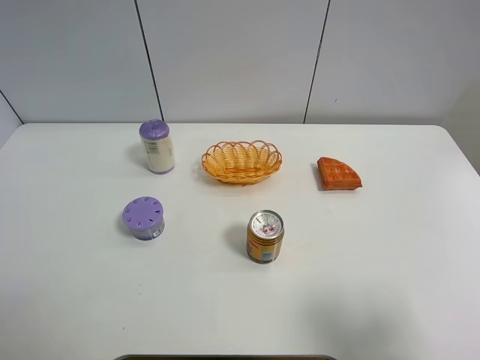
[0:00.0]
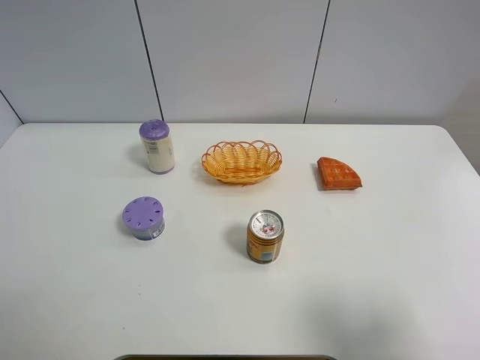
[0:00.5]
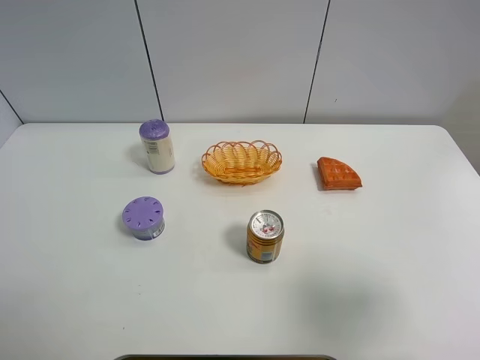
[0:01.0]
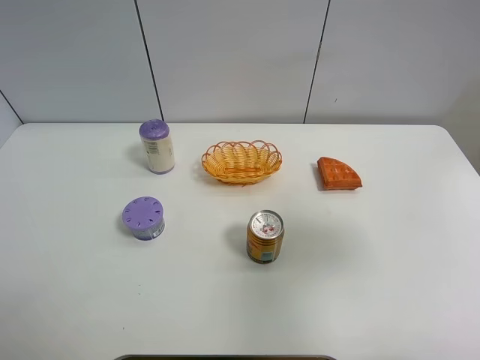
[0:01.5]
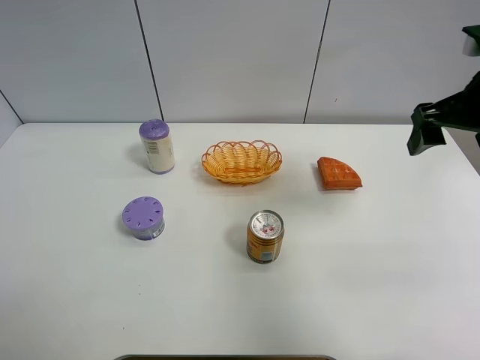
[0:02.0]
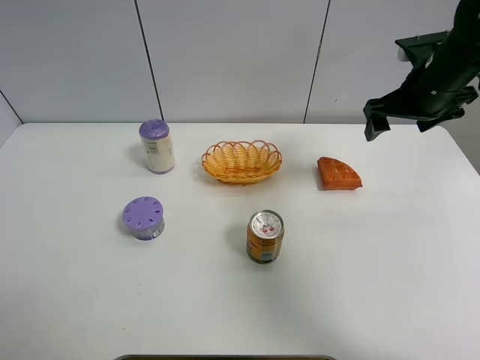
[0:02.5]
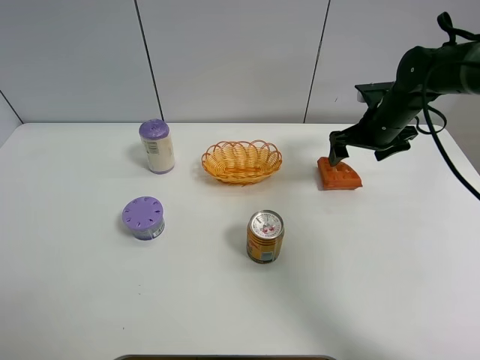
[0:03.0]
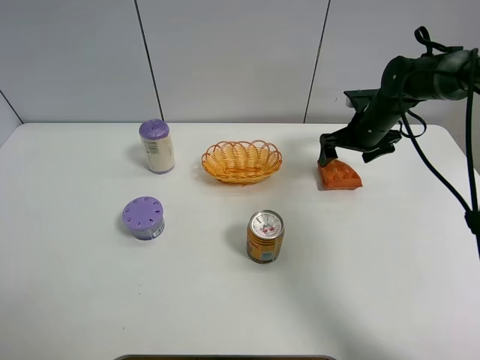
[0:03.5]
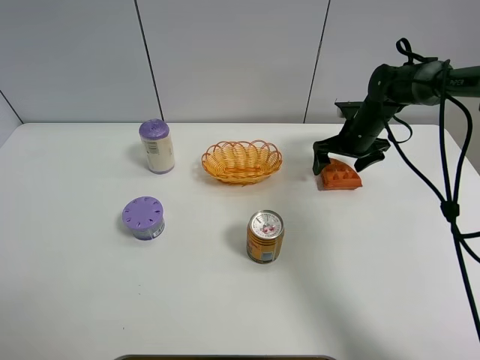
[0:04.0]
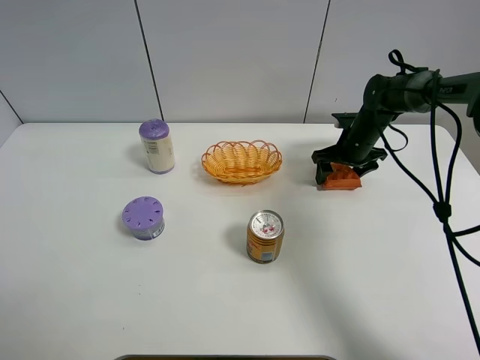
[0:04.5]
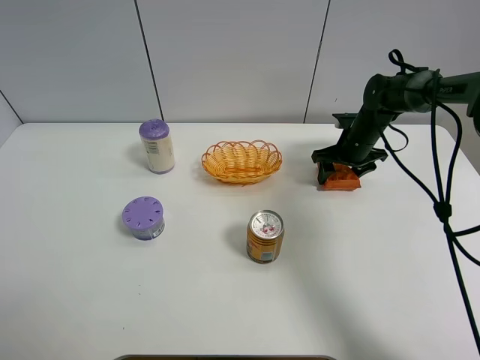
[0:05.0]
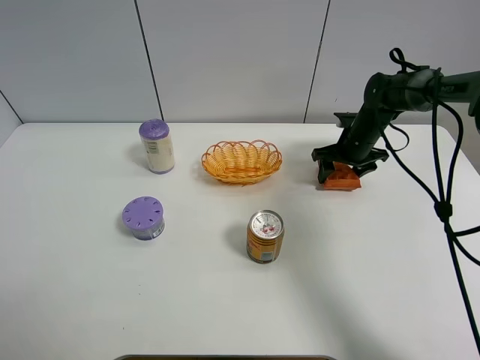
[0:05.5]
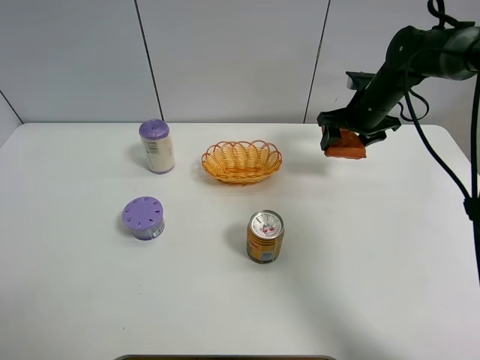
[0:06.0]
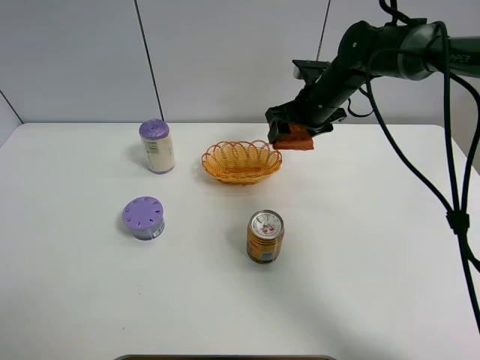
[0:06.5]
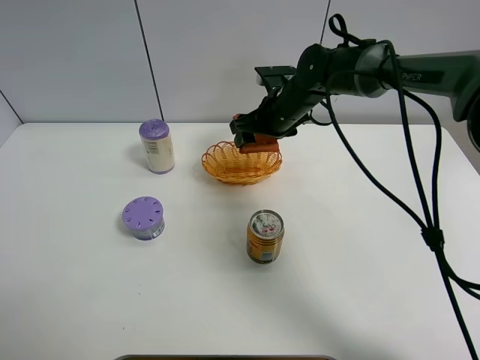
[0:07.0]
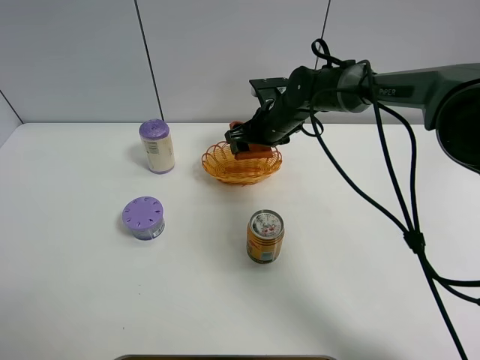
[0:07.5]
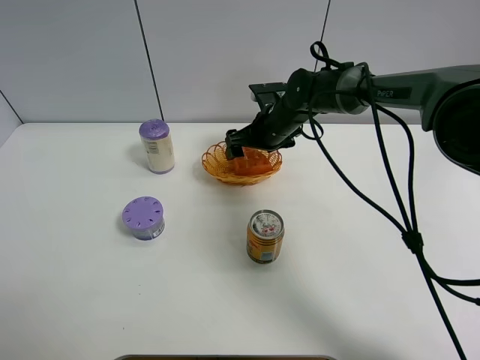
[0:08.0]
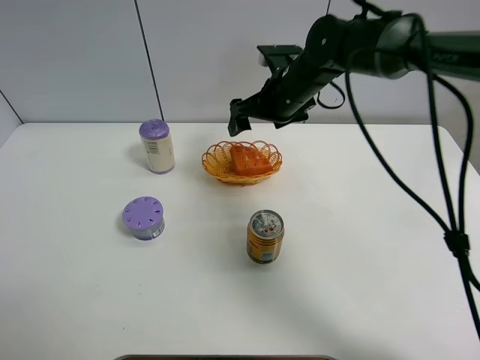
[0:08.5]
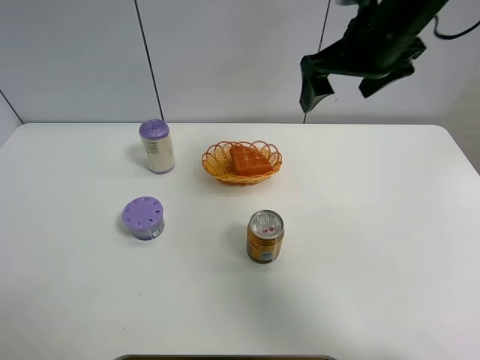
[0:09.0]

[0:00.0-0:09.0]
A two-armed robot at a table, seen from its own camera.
Task of the whole recording: Put the bakery in the basket.
Step, 0:00.0 to 0:04.5: Grasp the bread with right gripper.
Step, 0:05.0 to 0:08.5: Place the bread in the basket with right gripper.
0:00.0 to 0:02.0: The right gripper travels forward by about 30 cm.
0:02.0 to 0:04.5: The right gripper shifts some 30 cm downward and forward, and closes.
0:04.5 to 0:07.0: The right gripper travels to the left and upward by approximately 20 cm.
0:07.0 to 0:09.0: The right gripper moves upward, backward and to the right, roughly 20 cm, and opens its fingers.

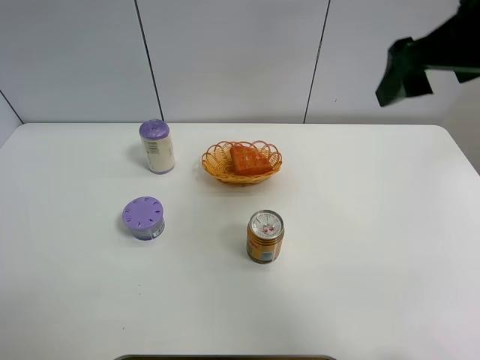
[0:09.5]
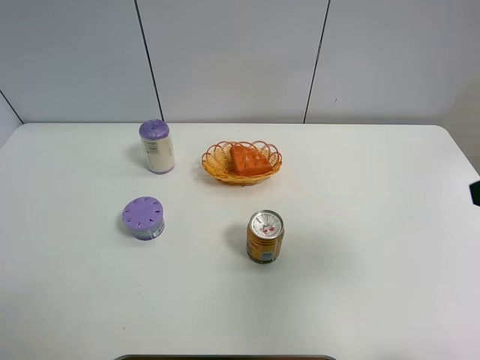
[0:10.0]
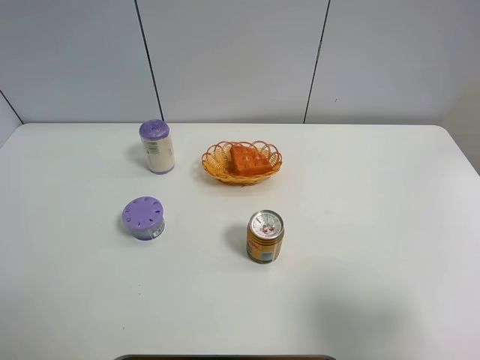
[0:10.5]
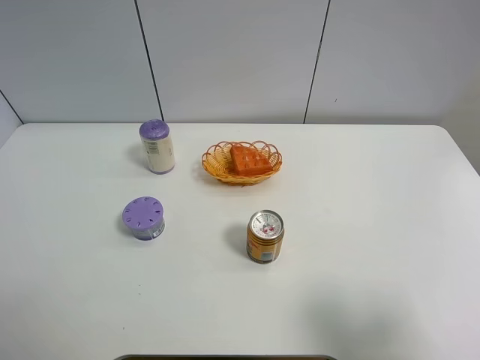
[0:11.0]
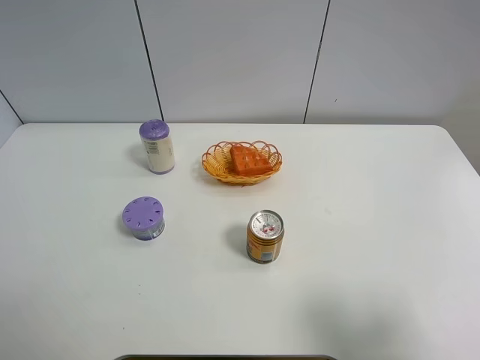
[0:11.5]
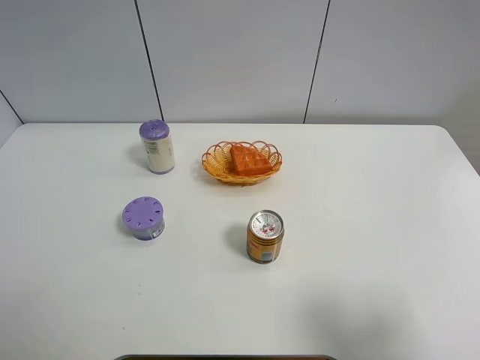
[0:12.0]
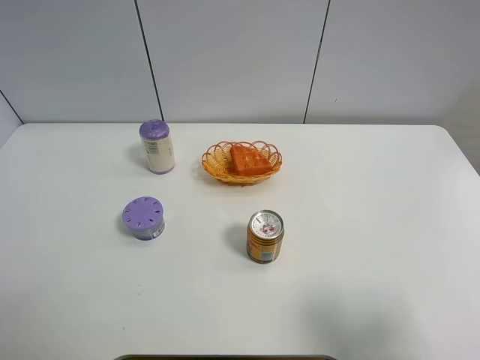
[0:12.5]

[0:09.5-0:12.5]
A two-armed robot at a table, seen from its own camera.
Task of the whole recording: Put the bakery in the basket.
0:09.5 to 0:11.0: The right gripper travels backward, downward and to the right by roughly 25 cm.
0:11.0 to 0:12.5: Neither gripper changes place.
